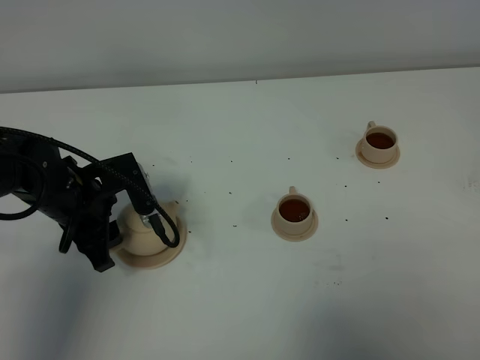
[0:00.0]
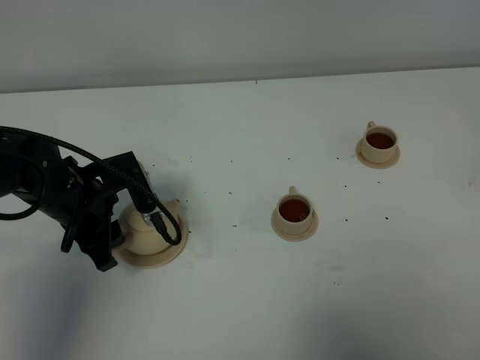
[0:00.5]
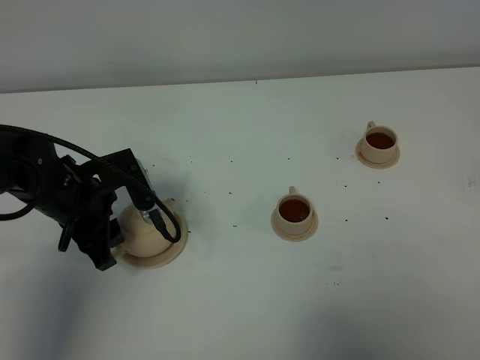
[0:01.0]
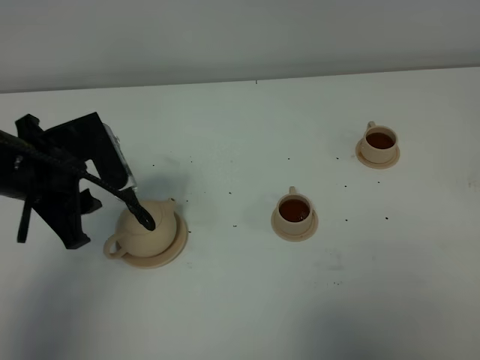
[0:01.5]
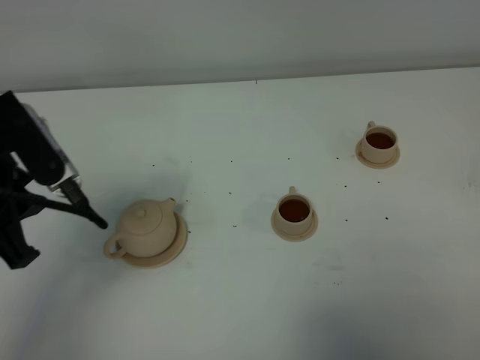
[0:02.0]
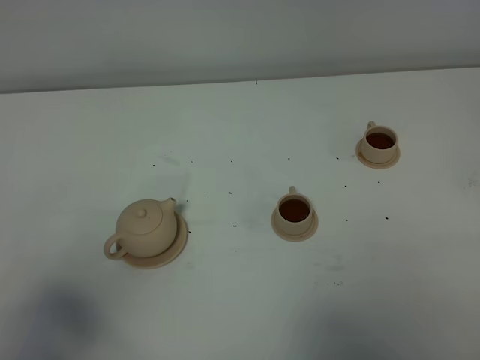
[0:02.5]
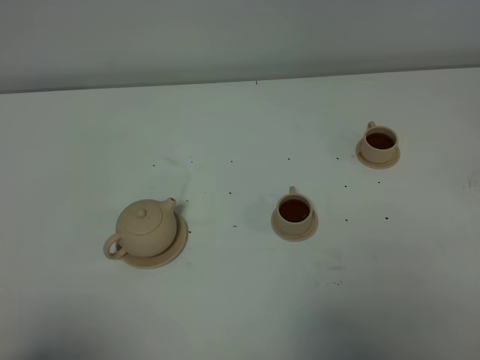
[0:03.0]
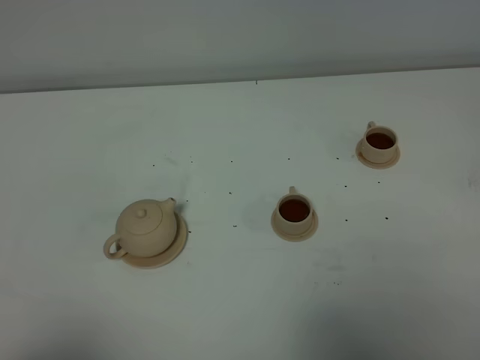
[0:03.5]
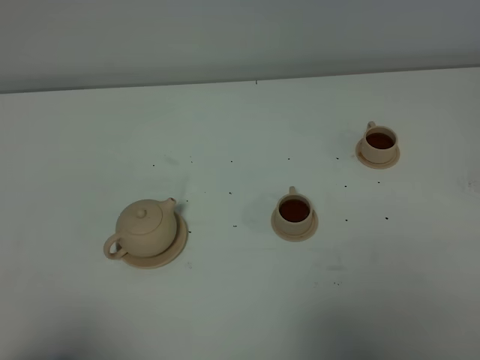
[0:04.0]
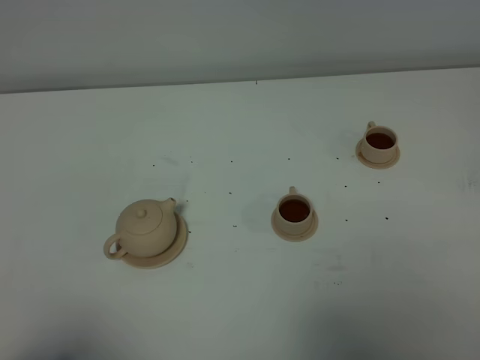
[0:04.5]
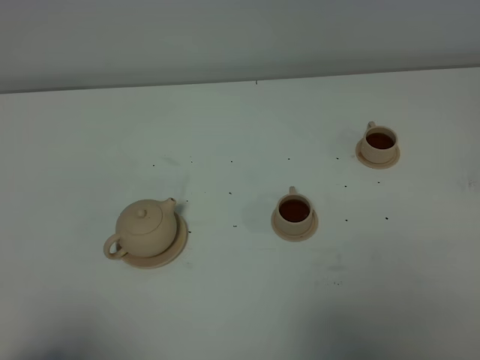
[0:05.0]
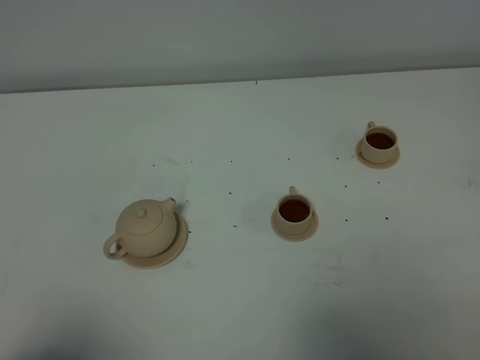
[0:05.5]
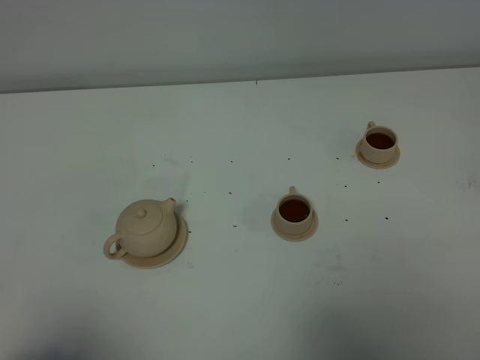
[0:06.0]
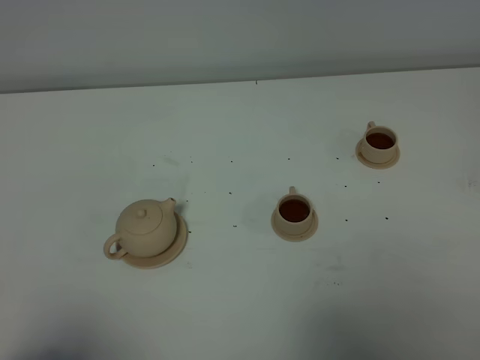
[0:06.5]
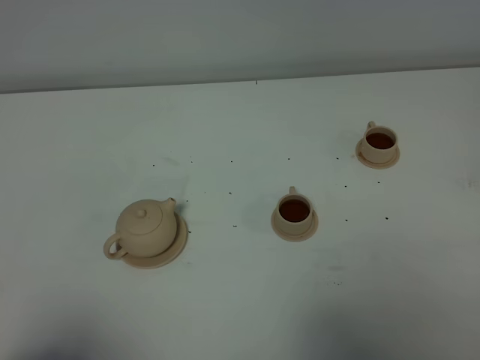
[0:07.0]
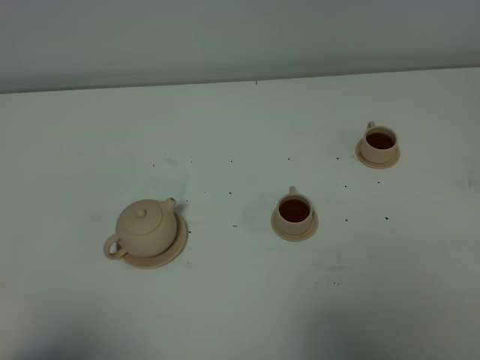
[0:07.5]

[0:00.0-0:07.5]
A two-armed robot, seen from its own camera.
Task of the whole recording: grasp the brown teapot and pour the tea into the two brown teacups one by one, put the brown teapot back in its original place.
0:00.0 to 0:02.0: The left gripper is displaced upward and backward by about 20 cm.
0:02.0 to 0:04.0: The left gripper moves backward, about 20 cm, and closes its fingers.
0:05.5 to 0:07.5: Both grippers stay about where they are.

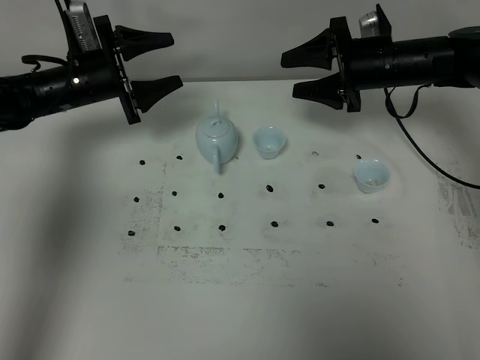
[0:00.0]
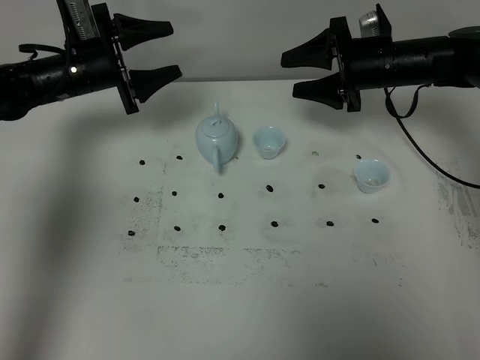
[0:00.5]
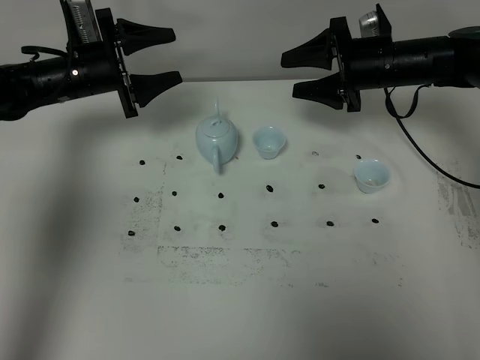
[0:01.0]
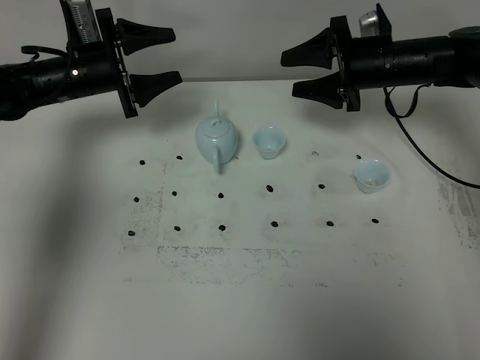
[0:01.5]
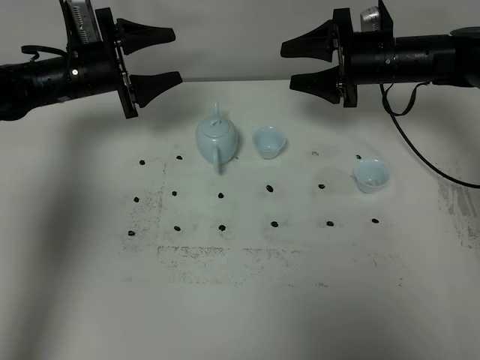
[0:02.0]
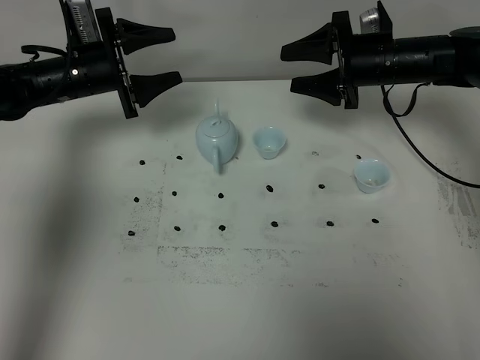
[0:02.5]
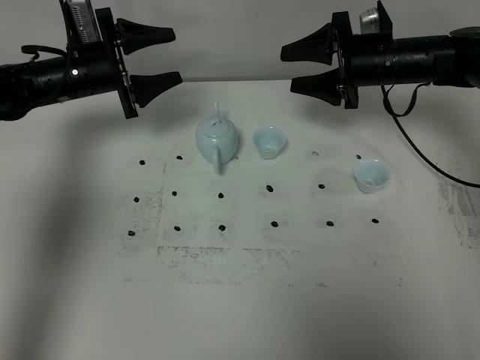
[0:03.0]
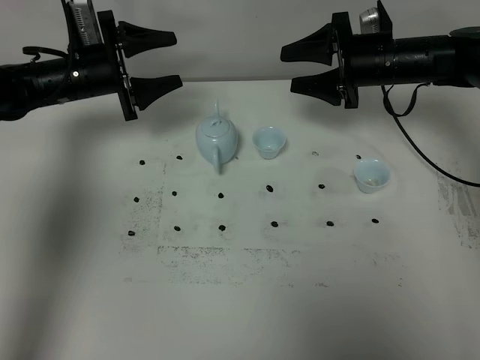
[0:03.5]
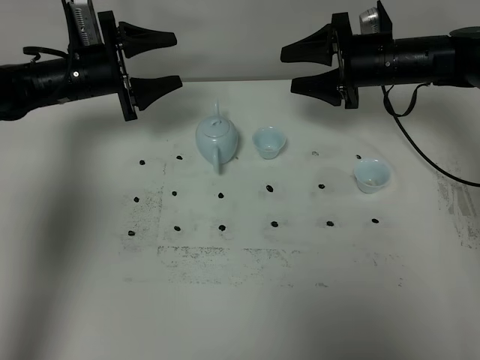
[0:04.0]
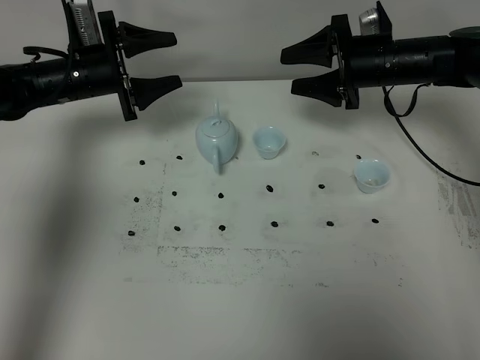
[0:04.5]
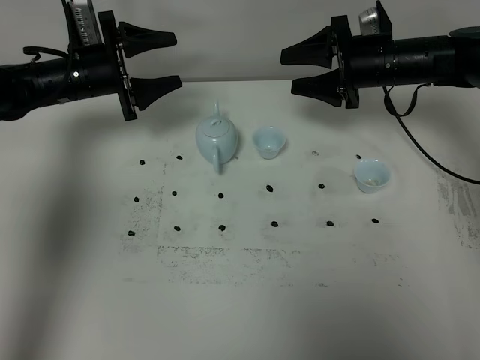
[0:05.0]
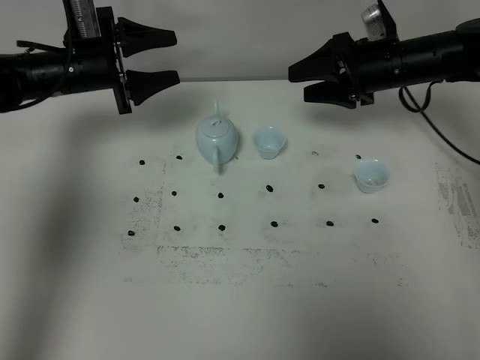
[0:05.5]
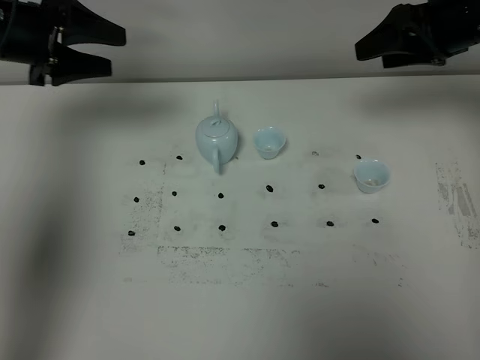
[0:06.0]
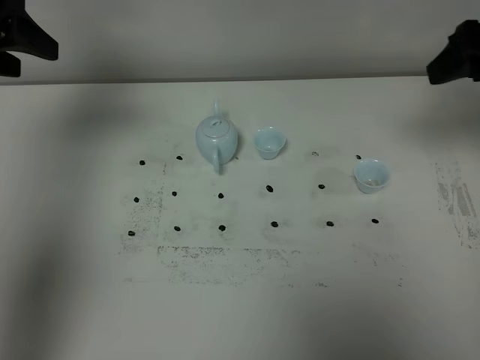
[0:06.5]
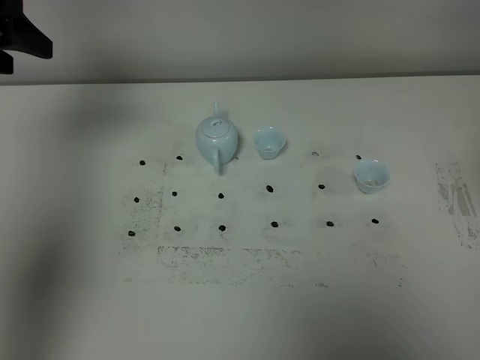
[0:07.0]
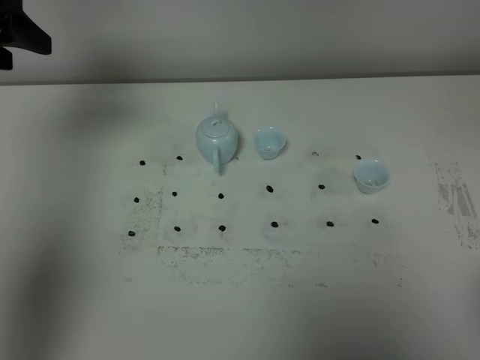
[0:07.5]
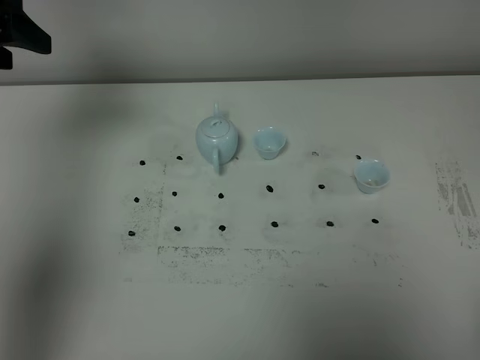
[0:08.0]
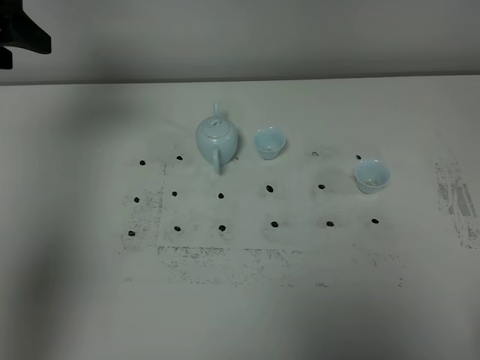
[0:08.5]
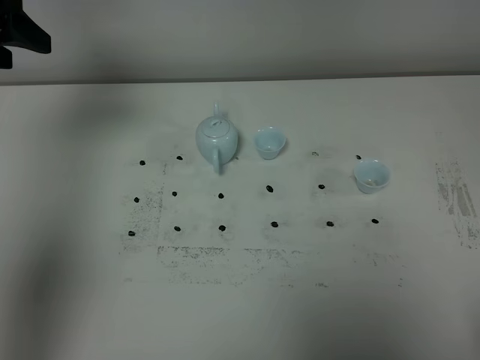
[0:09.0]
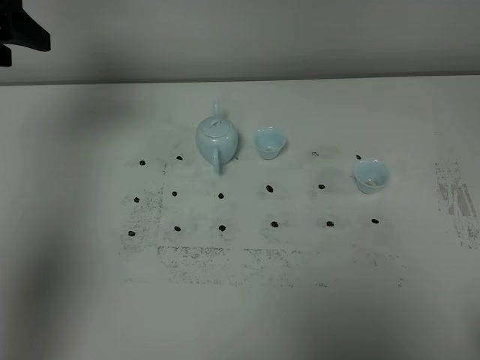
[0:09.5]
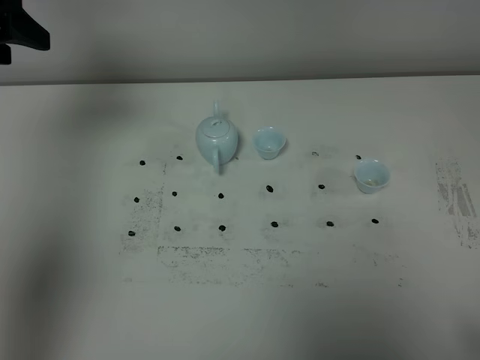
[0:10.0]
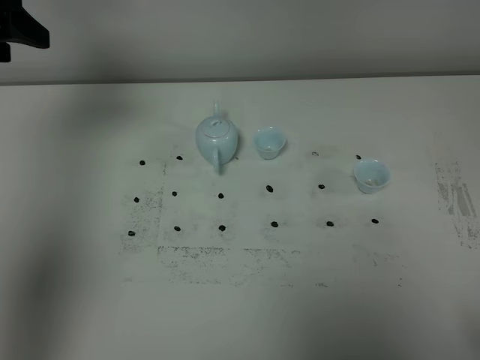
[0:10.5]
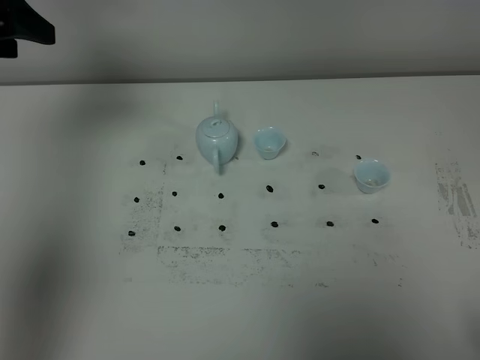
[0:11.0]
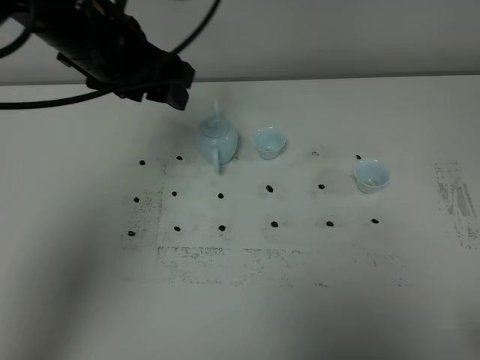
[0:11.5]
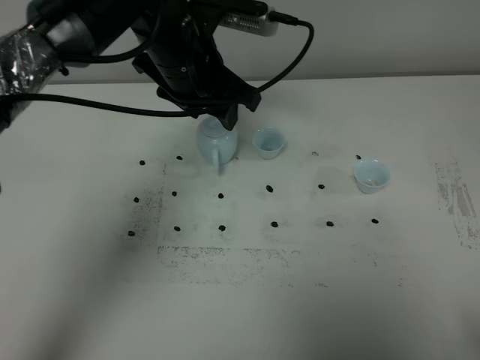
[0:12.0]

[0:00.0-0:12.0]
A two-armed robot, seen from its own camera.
Task of the whole recording: grasp the blue porcelain teapot and pour the tea into the two blue porcelain teacups one by one, put the blue porcelain teapot back in its original place.
0:00.0 to 0:04.0: Both grippers stay about where they are.
0:04.0 to 0:06.0: The right gripper goes roughly 15 cm upward, to the right and backward. The left gripper travels upward and backward by about 15 cm.
0:06.0 to 0:08.0: The left gripper is displaced upward by about 5 cm; the right gripper travels backward by some 40 cm.
0:10.0 to 0:12.0: The left gripper moves to the right, about 25 cm.

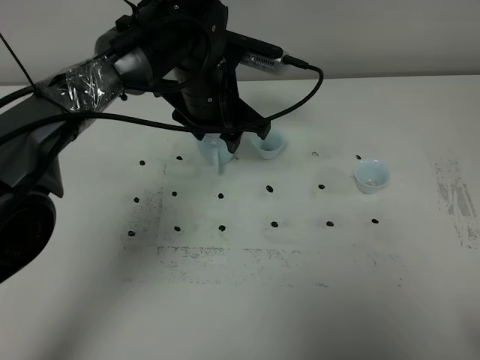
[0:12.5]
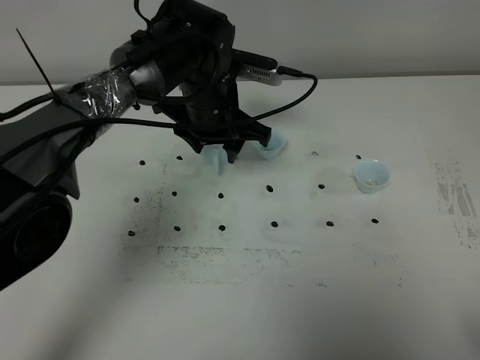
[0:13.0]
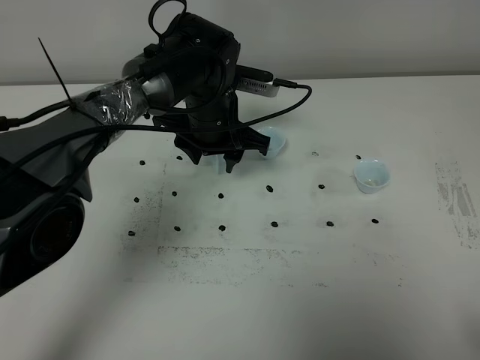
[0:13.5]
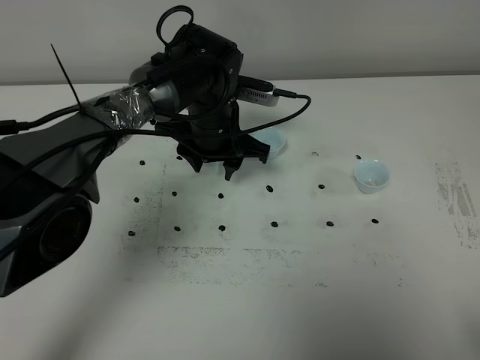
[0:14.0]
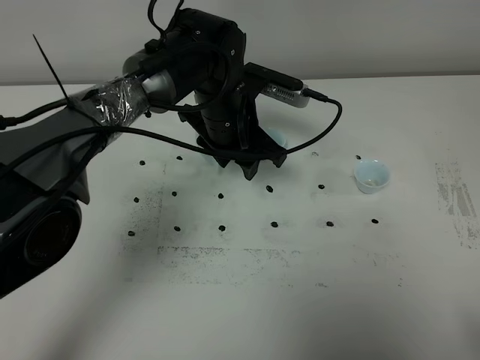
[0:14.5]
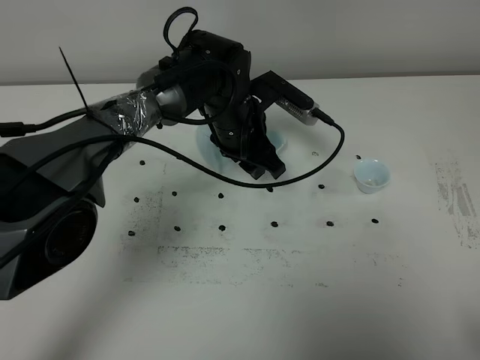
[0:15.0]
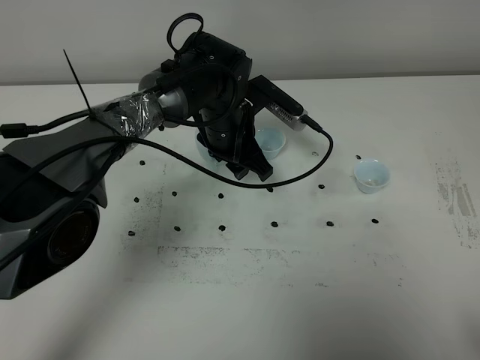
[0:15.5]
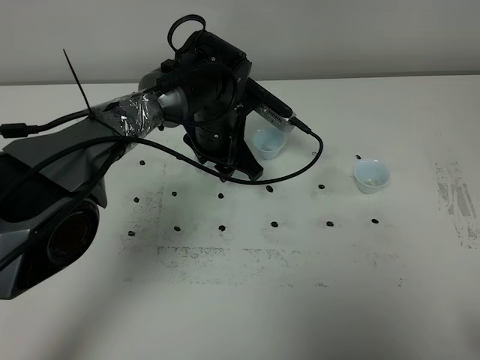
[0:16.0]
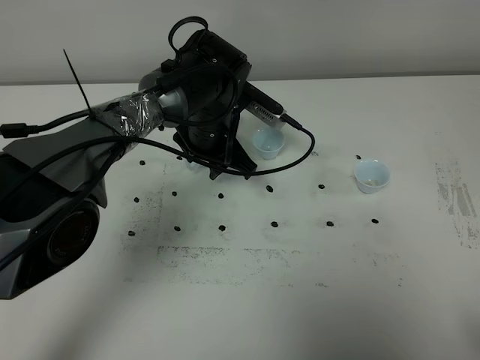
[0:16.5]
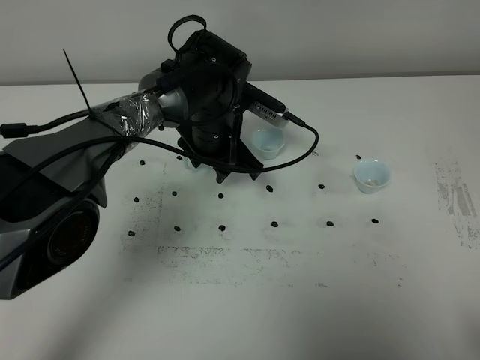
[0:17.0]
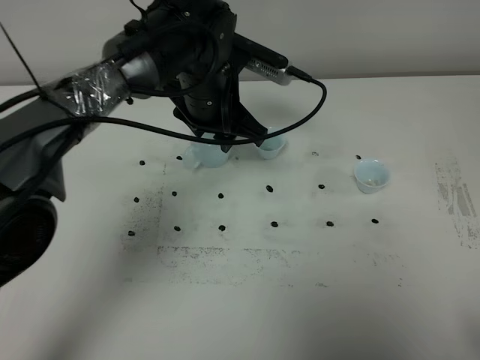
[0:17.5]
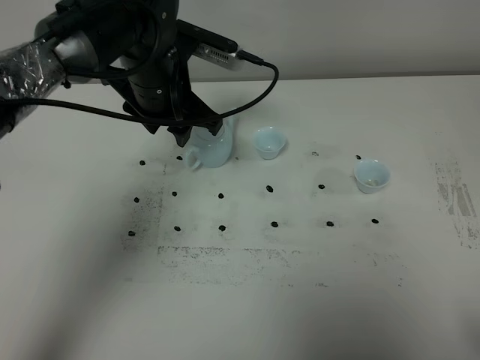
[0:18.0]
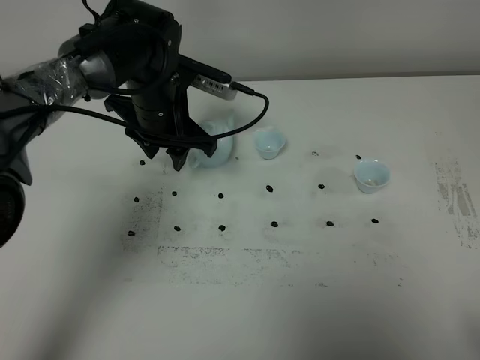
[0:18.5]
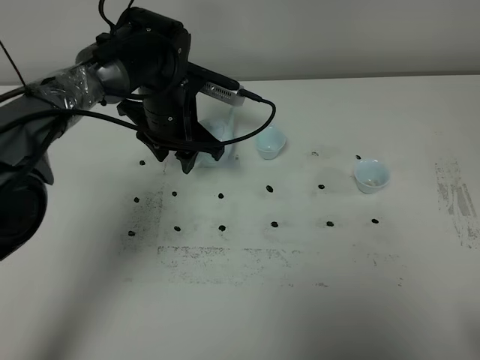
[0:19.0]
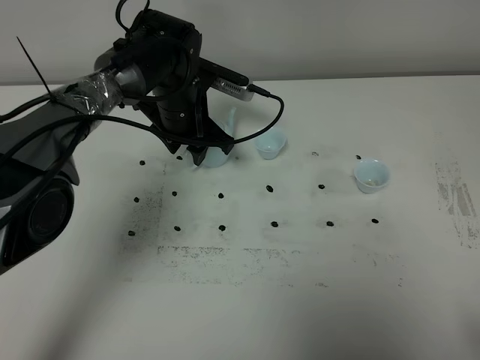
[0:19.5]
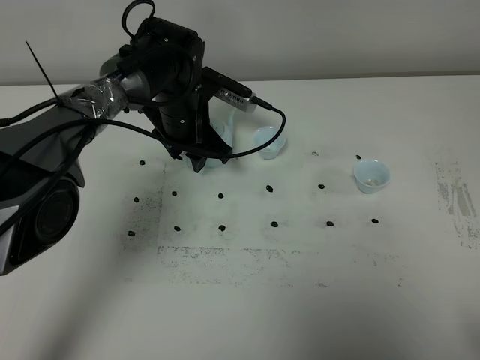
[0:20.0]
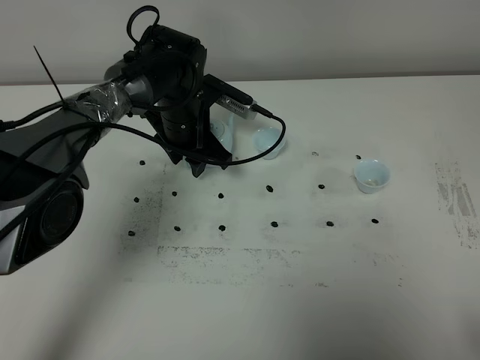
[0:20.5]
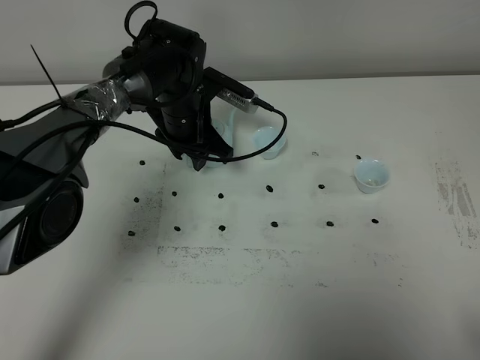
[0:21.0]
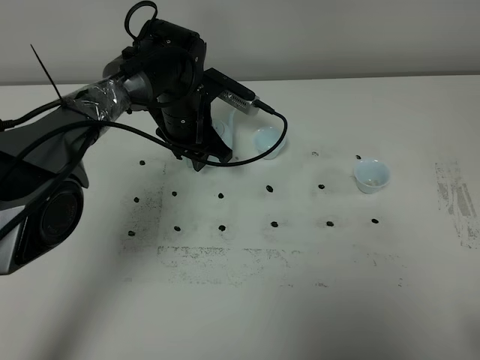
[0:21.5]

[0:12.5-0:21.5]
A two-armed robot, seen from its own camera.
Task of the whole recording: grasp the blue porcelain teapot and pour the tea into the two blue porcelain teacups one by one, put the blue porcelain teapot back in its original place.
0:14.5 to 0:17.0: There are only small adjustments of the grippers.
0:17.0 to 0:19.5: The left gripper heads to the left, covering approximately 5 cm, and reaches roughly 10 cm upward, then returns.
0:19.5 to 0:21.5: The grippers make only small movements.
